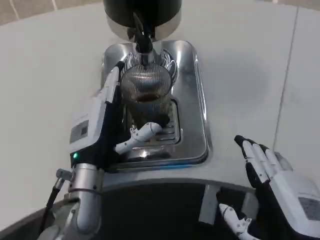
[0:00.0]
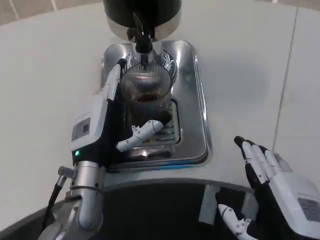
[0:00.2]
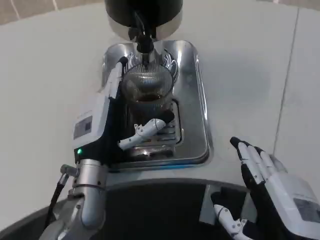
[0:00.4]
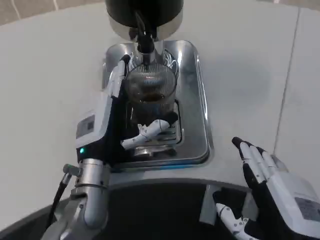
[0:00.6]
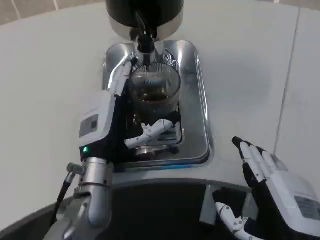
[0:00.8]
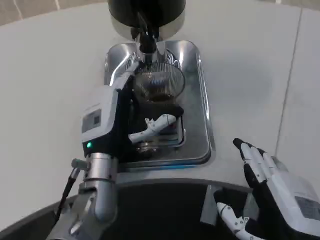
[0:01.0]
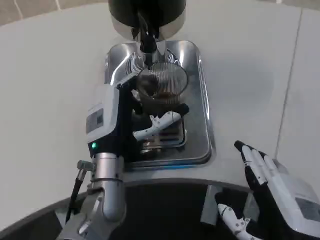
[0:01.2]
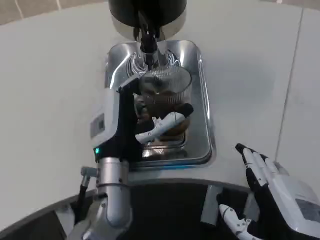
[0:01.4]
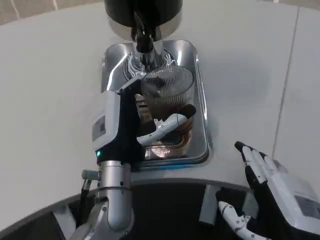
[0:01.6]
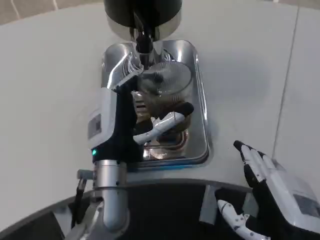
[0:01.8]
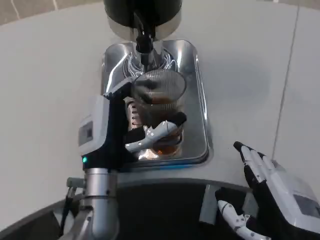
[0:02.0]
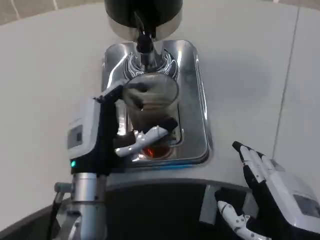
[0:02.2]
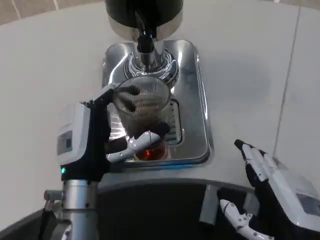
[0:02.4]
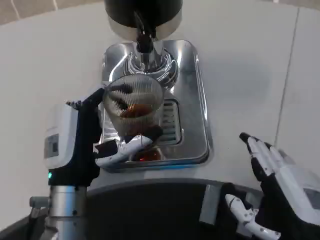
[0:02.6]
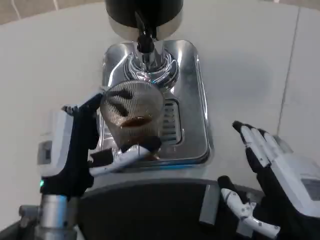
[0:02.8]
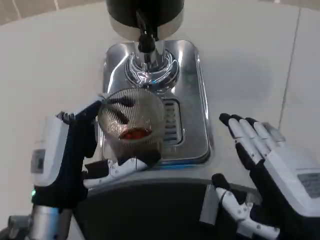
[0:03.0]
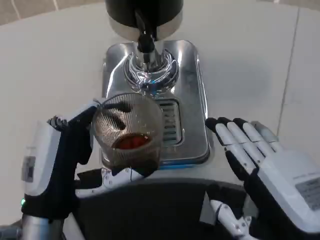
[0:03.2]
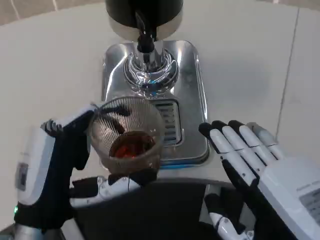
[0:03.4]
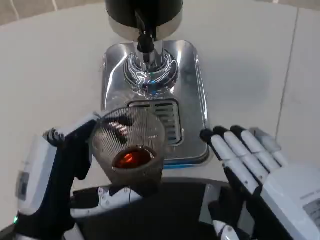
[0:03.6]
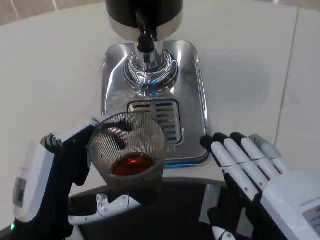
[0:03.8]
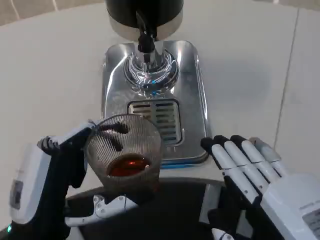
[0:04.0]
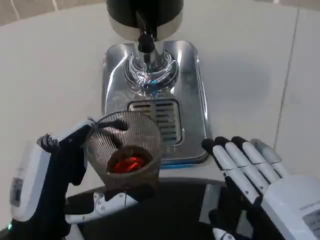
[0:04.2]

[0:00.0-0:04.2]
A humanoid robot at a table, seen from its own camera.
Task of the whole recording: Grasp the cup under the faucet to collect the drink, then remove the cup.
0:01.4 to 0:02.8: The left hand moves to the left and backward, some 10 cm.
0:02.8 to 0:04.2: The two hands go about 5 cm backward.

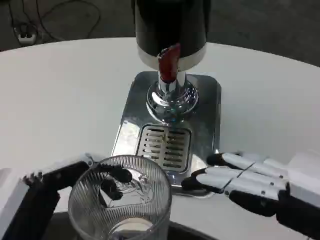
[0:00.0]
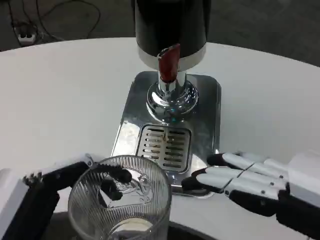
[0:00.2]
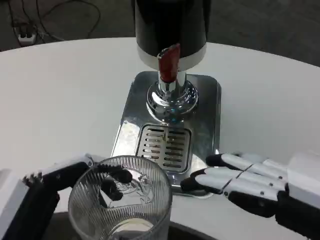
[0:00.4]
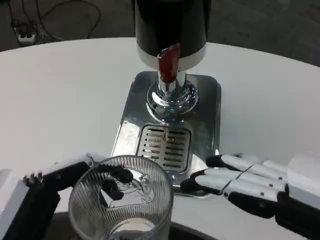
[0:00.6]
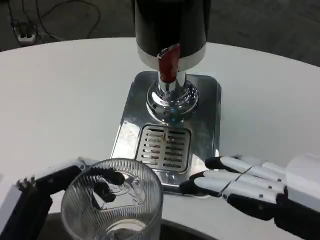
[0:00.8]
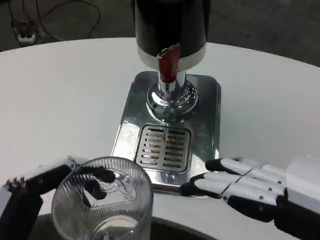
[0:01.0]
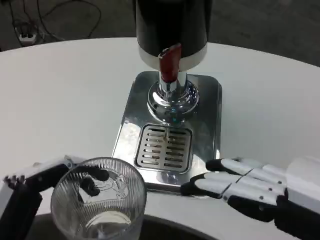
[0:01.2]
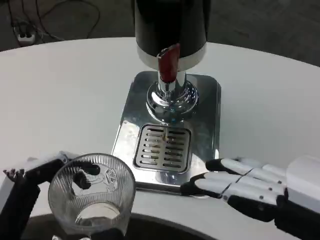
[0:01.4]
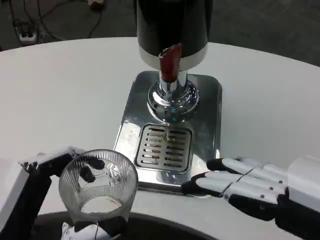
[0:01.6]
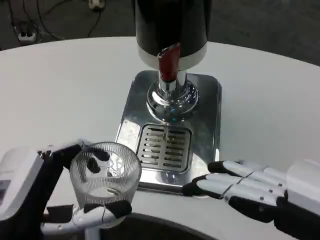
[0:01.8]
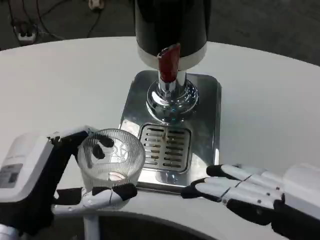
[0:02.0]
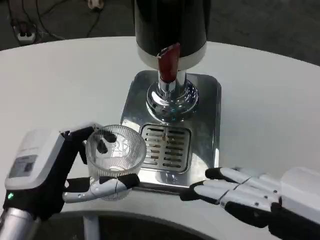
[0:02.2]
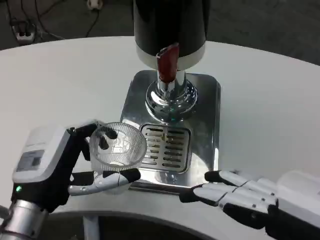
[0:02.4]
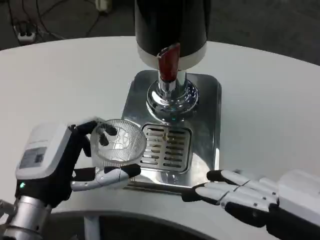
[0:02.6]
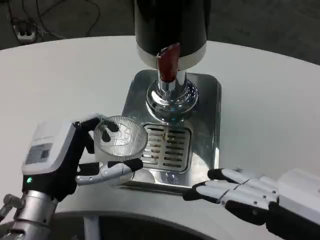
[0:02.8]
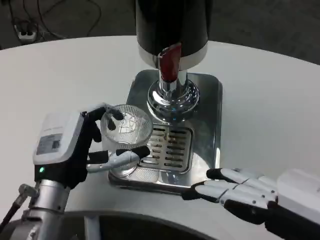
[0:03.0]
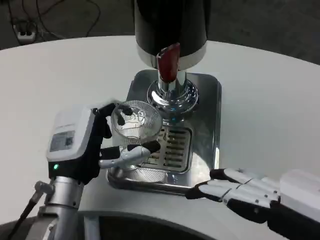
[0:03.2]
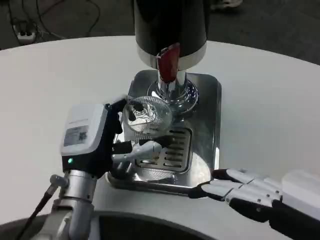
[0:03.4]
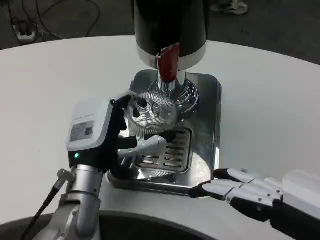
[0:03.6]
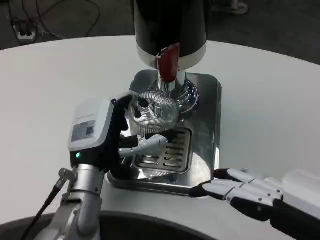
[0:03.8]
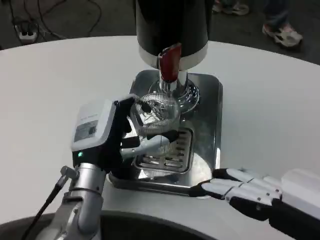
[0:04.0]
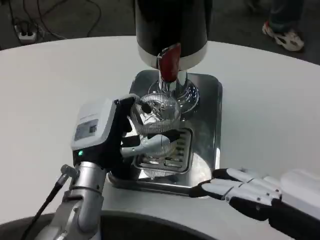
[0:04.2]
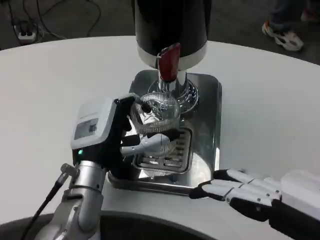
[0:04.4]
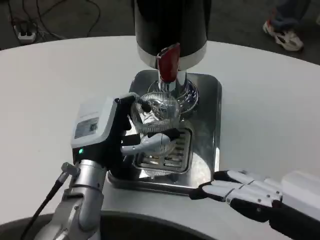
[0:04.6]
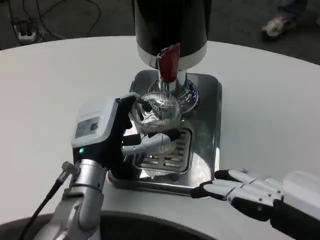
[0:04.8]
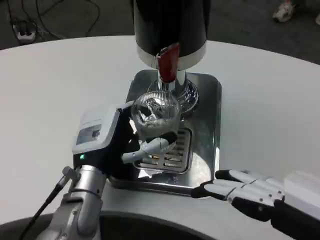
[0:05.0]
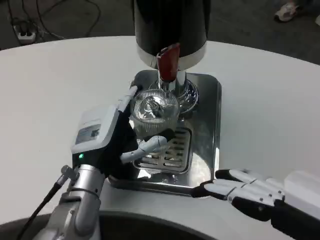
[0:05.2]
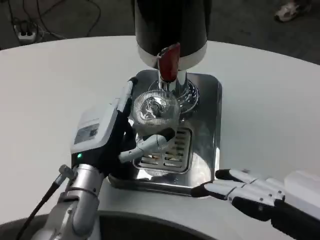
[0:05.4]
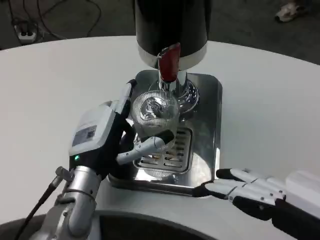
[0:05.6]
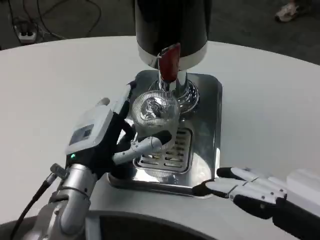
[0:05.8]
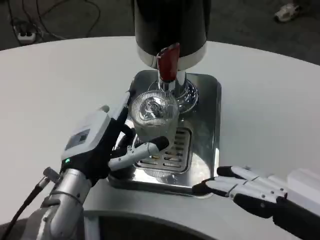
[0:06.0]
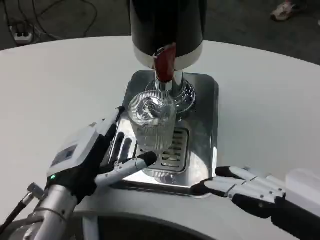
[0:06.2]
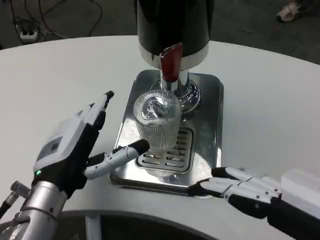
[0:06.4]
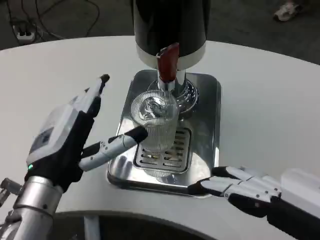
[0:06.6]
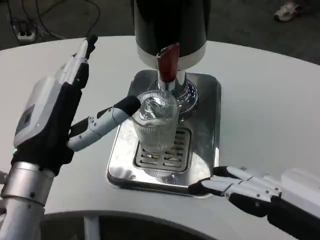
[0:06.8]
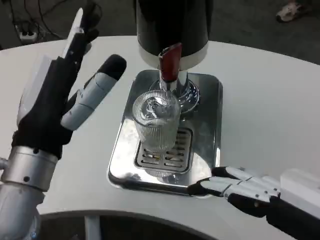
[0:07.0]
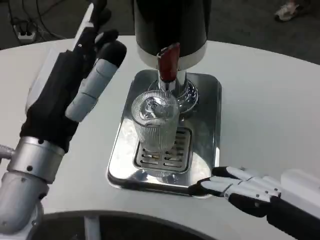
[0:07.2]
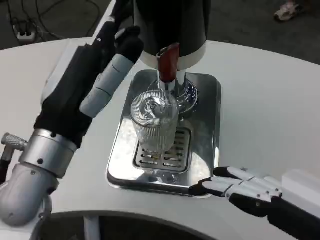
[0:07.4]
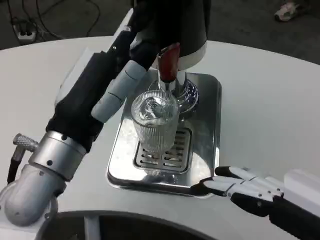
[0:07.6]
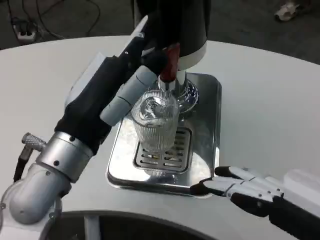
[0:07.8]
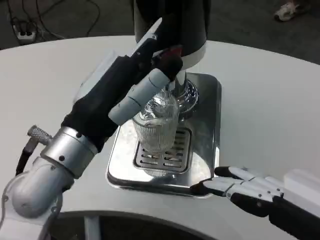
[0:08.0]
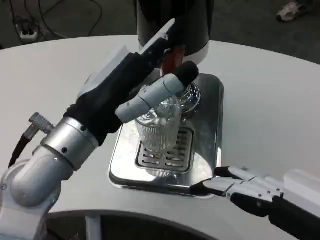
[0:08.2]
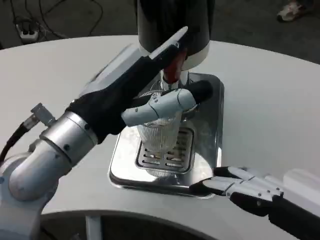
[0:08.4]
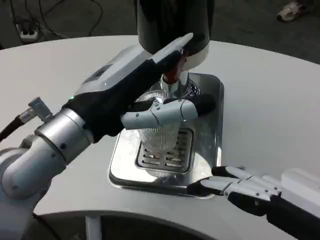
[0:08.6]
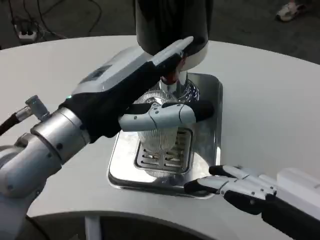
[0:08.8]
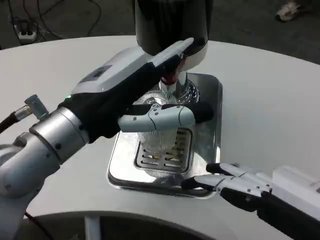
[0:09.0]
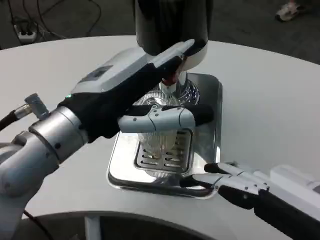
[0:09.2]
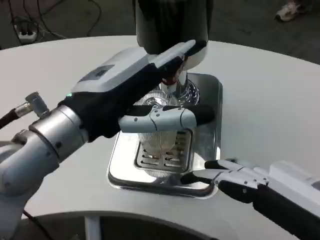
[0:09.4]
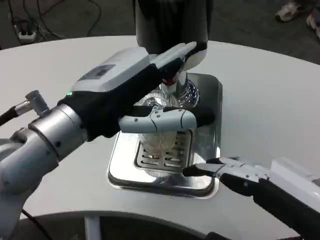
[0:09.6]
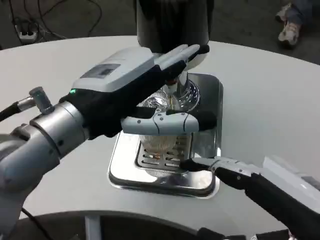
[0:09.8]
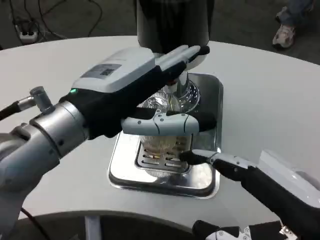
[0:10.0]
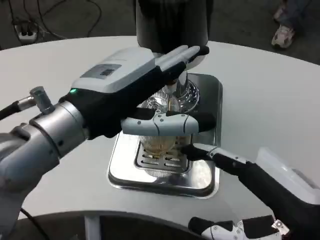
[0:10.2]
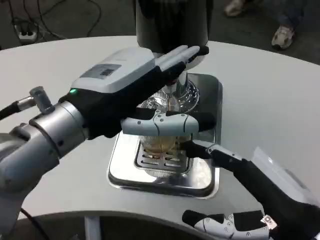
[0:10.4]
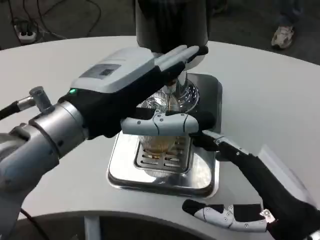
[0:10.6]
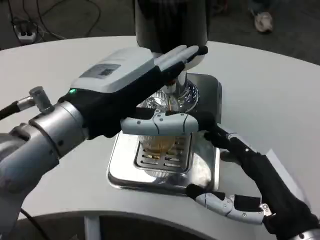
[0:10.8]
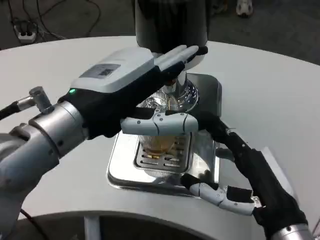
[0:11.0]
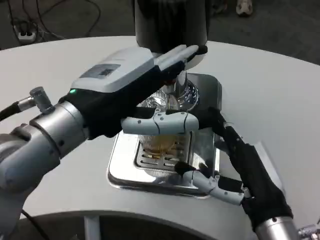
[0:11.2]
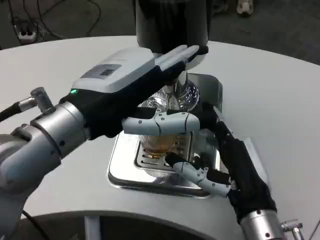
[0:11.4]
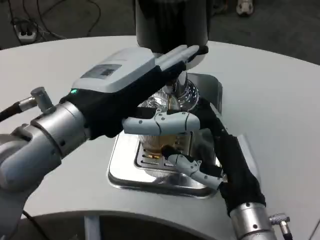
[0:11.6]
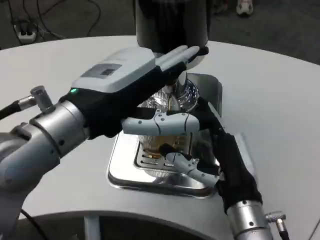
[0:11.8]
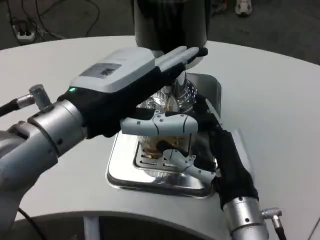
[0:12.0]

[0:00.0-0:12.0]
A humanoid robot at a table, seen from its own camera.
Task of the whole recording: Grasp the cup under the faucet to collect the drink, then remove the cup.
0:00.0 to 0:01.6: The left hand moves forward, about 5 cm.
0:01.6 to 0:03.0: The left hand shifts some 15 cm forward.
0:03.0 to 0:04.4: The left hand ends up some 5 cm from where it was.
0:04.4 to 0:06.0: The hands move only a little.
0:06.0 to 0:07.6: The left hand heads upward, covering some 10 cm.
0:09.0 to 0:10.4: The right hand shifts some 10 cm downward and forward.
0:10.4 to 0:12.0: The right hand is displaced to the left, forward and downward by about 15 cm.

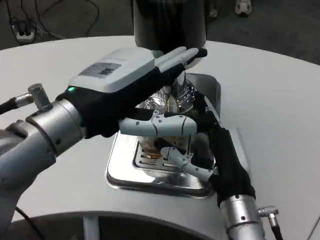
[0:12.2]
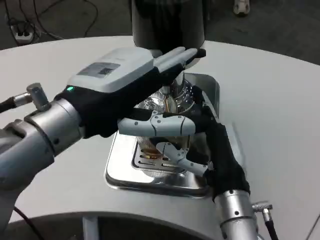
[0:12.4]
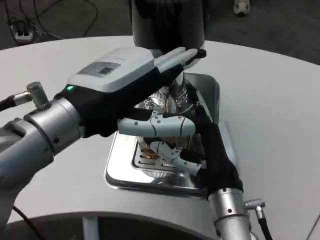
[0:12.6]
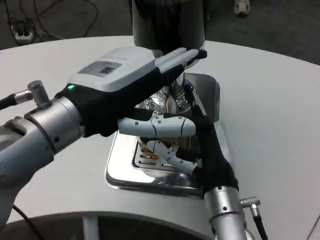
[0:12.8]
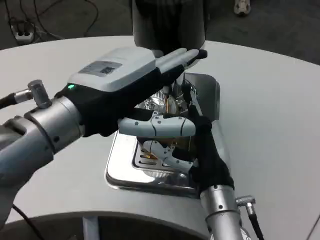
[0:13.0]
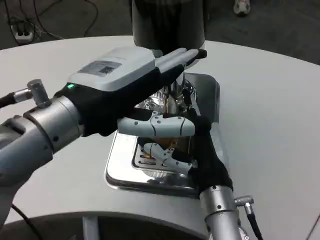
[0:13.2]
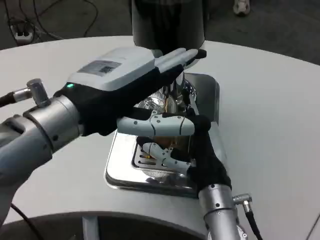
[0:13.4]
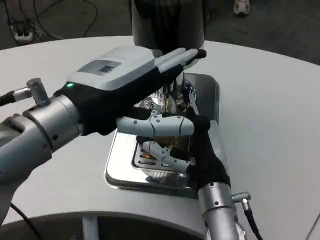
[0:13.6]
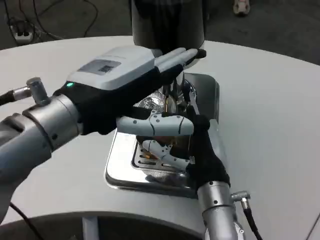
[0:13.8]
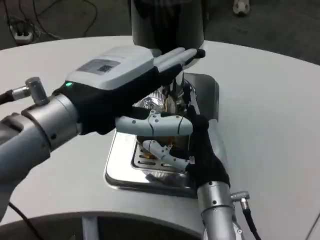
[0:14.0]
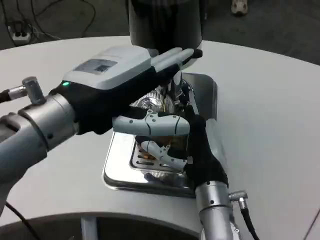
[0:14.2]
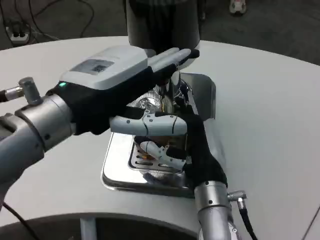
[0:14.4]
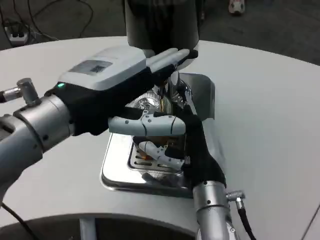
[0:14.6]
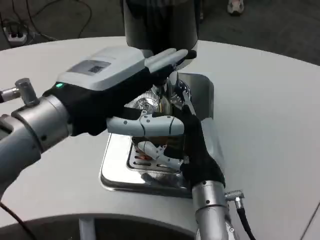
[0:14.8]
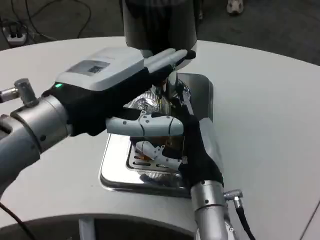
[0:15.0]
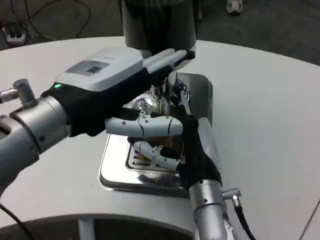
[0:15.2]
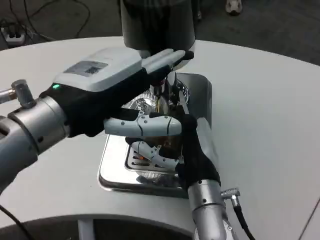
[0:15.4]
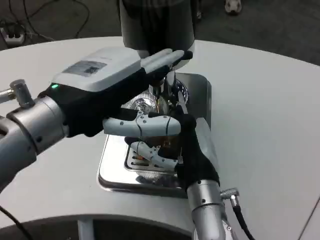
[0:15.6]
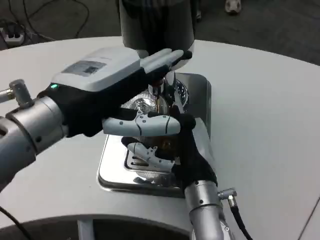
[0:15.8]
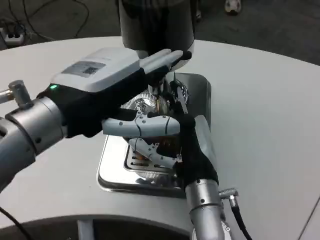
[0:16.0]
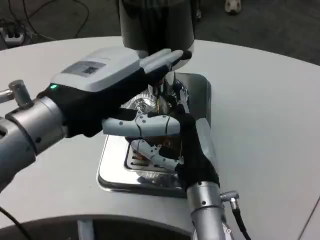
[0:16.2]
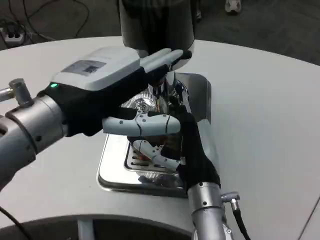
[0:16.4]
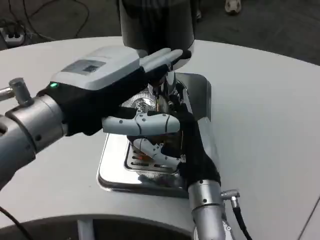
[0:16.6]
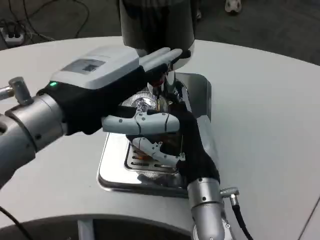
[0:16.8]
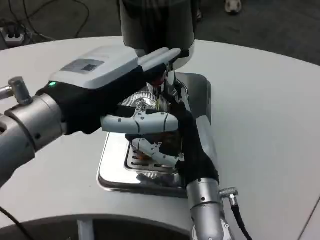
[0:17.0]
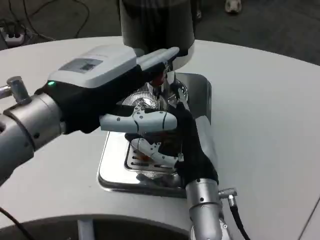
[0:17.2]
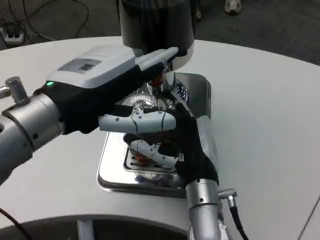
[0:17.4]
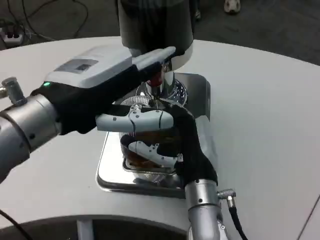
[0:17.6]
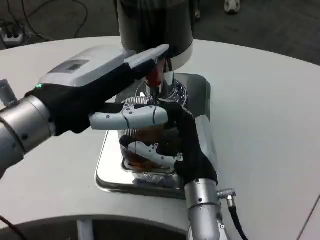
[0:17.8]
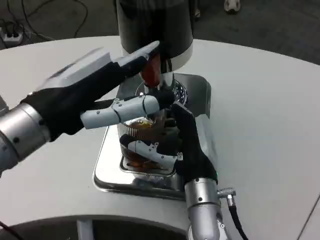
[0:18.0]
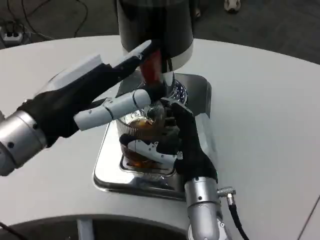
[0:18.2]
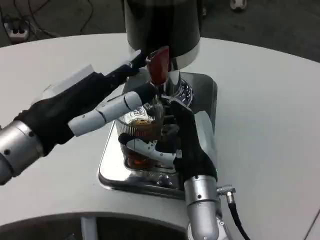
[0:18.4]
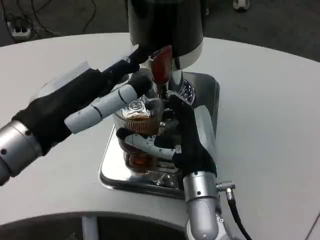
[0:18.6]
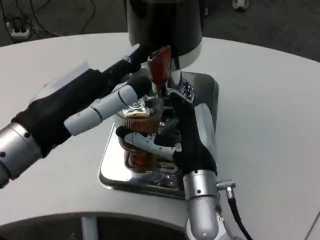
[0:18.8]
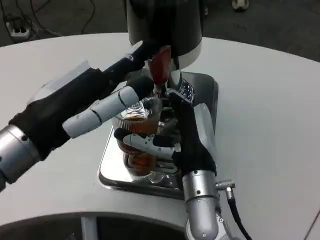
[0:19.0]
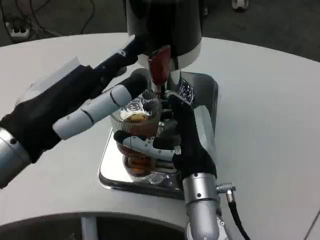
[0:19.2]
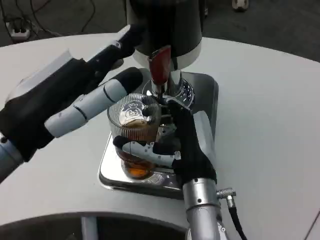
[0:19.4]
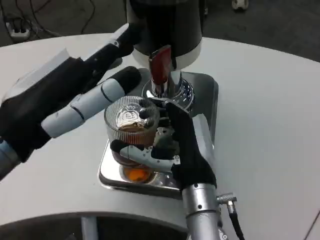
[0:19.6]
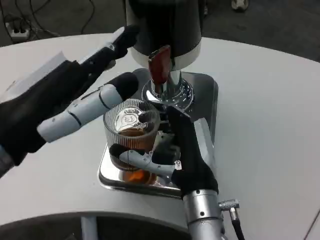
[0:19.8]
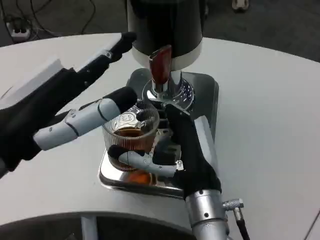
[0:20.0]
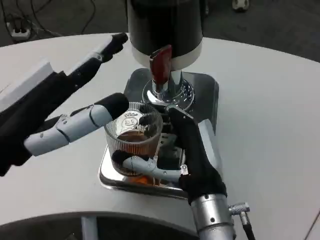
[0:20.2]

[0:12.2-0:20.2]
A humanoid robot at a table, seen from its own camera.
Task of the whole recording: Grasp the cup under the faucet to collect the drink, then remove the cup.
0:15.4 to 0:17.0: Both hands stay about where they are.
0:18.6 to 0:20.2: The left hand travels backward by approximately 5 cm.
